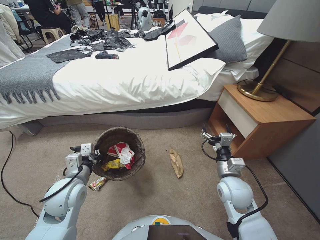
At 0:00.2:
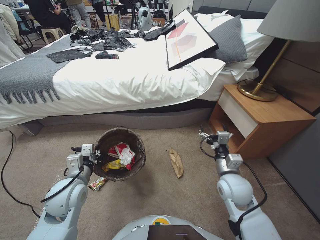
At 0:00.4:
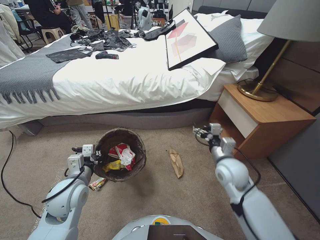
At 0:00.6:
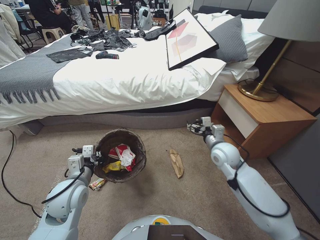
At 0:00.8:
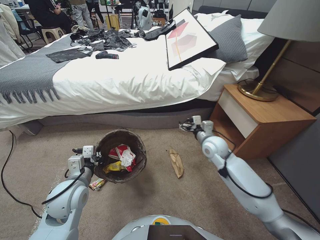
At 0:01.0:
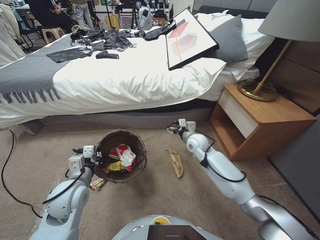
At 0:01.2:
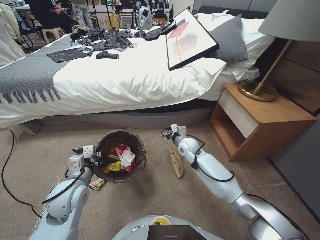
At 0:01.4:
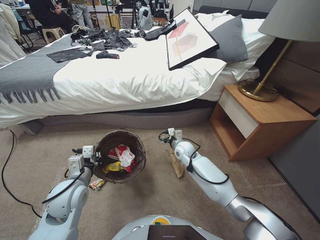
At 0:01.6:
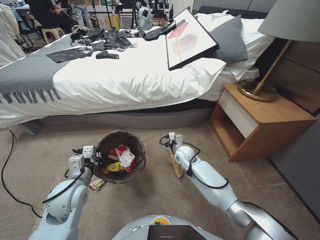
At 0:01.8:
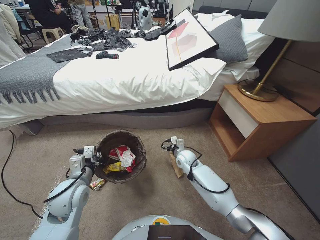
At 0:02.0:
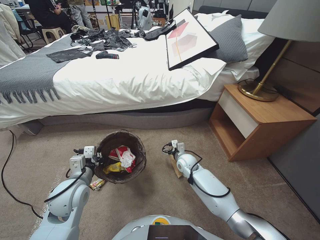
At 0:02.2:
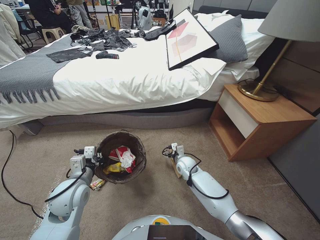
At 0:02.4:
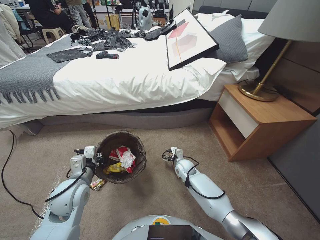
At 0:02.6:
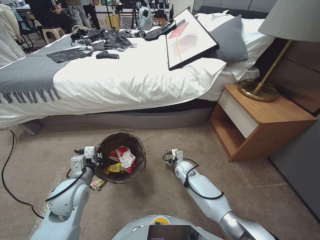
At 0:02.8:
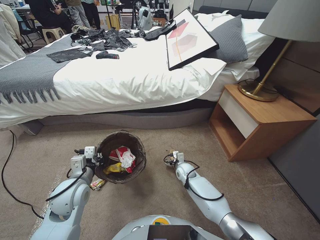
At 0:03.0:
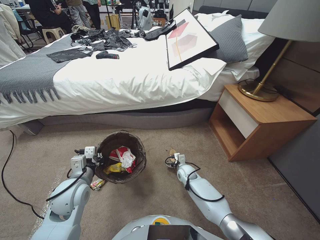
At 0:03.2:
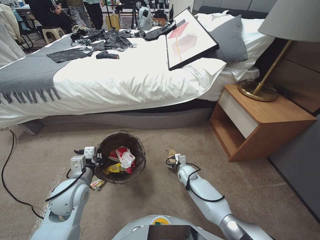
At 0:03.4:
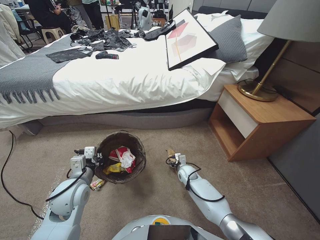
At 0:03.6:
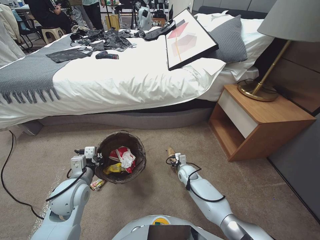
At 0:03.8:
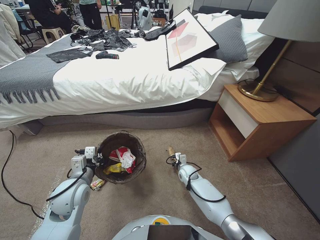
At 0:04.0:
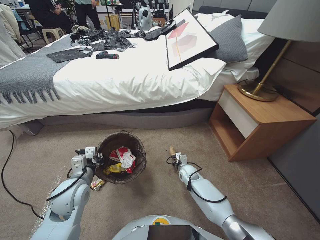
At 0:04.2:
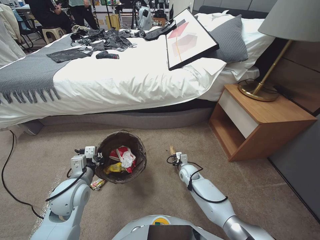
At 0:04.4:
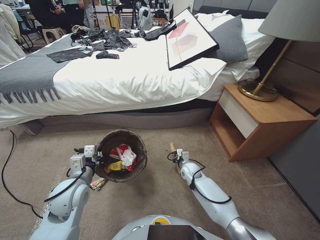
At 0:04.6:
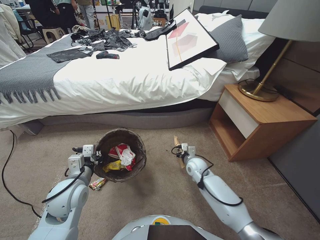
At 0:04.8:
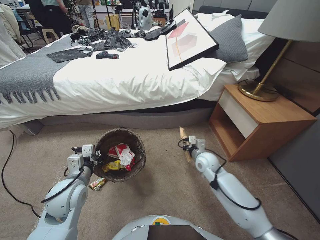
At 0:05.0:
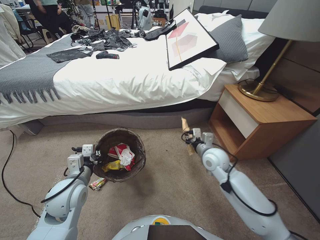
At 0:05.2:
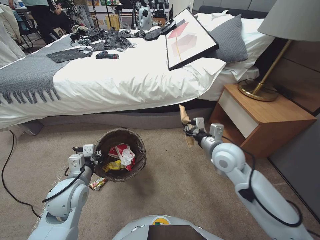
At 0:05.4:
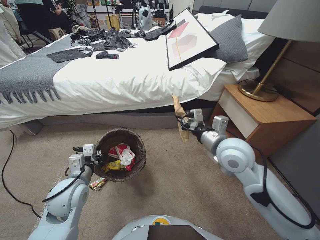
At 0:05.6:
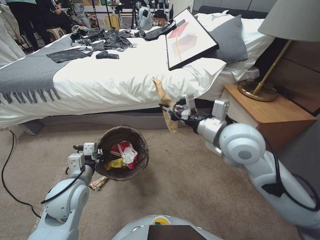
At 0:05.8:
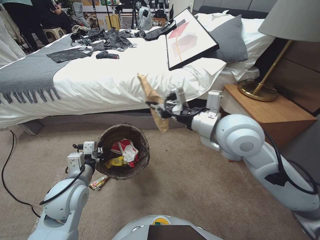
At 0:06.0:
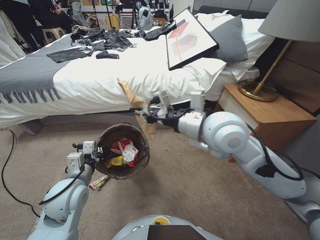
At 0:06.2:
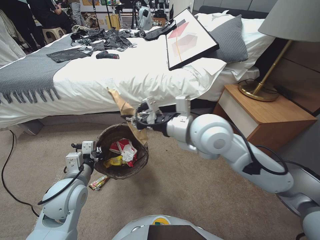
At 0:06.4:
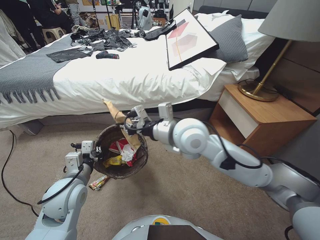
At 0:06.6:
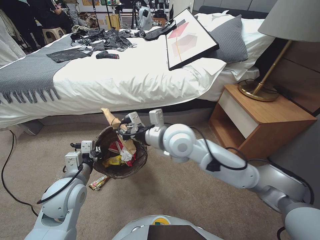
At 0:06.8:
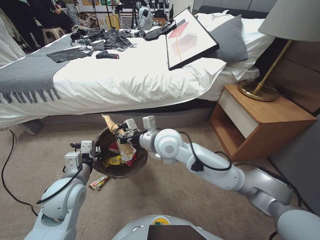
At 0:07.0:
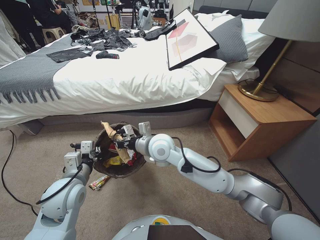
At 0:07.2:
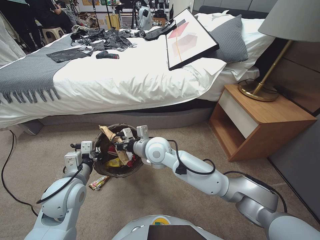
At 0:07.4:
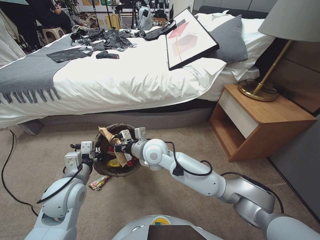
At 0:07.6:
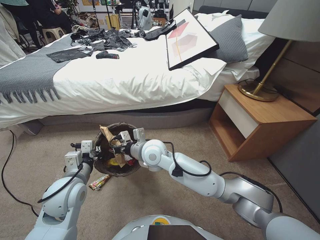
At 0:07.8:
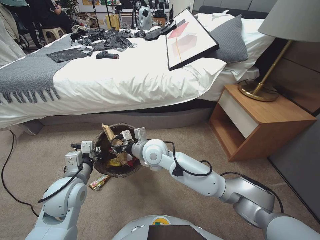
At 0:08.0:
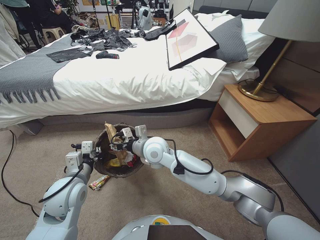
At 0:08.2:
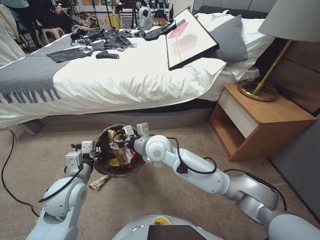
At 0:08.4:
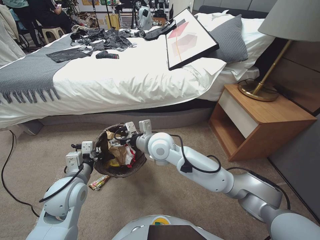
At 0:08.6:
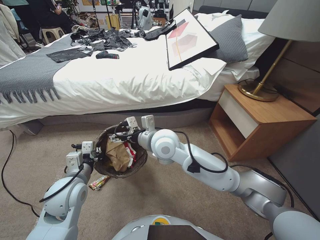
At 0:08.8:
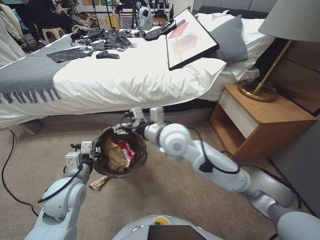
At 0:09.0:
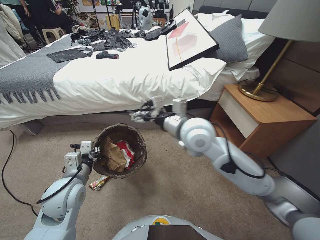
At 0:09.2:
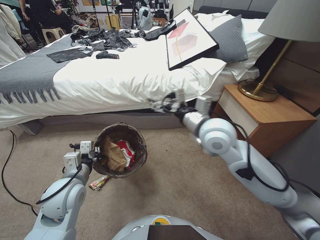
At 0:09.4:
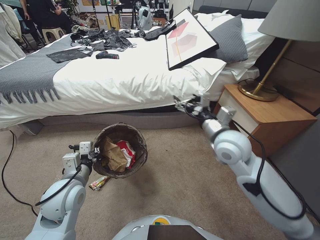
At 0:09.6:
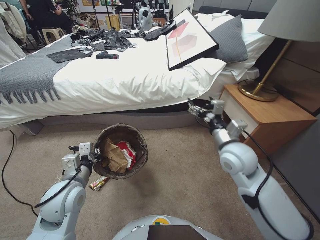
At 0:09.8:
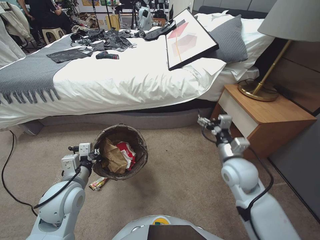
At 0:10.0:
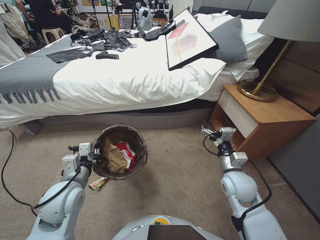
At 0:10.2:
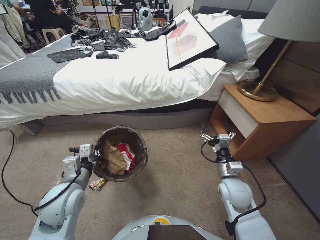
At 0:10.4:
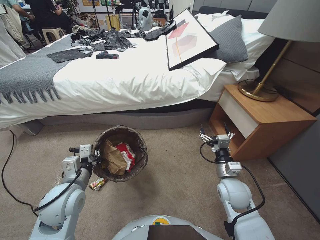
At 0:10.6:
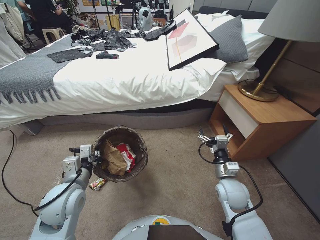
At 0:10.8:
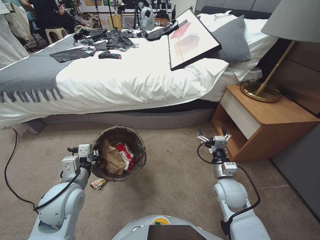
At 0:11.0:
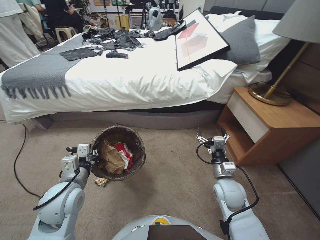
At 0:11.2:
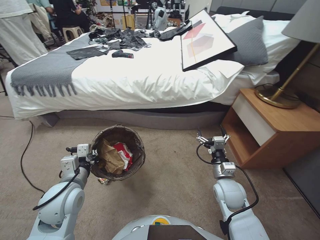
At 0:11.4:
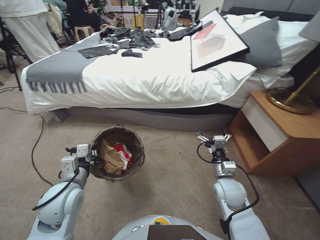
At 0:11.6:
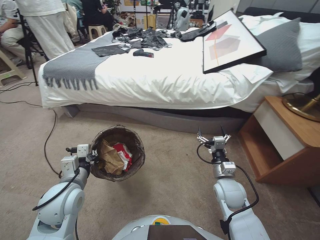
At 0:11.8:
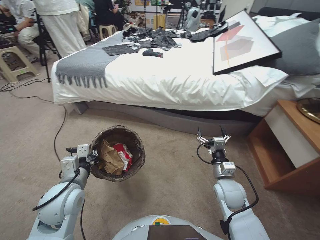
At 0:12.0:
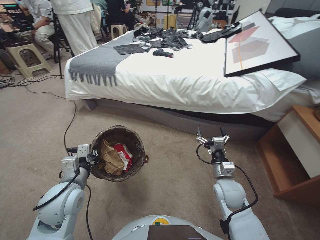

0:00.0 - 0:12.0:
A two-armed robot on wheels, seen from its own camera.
Task of the whole recording: Pick up the trash bin, then pick up the garbage from the floor and place it into the trash bin.
0:00.0 - 0:01.6: The right gripper moves forward, to the left and downward, roughly 25 cm.
0:01.6 - 0:03.0: The right gripper travels downward by about 15 cm.
0:03.0 - 0:04.4: The right gripper closes its fingers.
0:04.4 - 0:06.0: The right gripper travels upward by approximately 50 cm.
0:06.0 - 0:07.6: The right gripper is displaced to the left and downward by some 25 cm.
0:07.6 - 0:09.0: The right gripper opens its fingers.
0:09.0 - 0:10.4: The right gripper goes some 25 cm to the right.
0:10.4 - 0:12.0: The right gripper travels downward by some 20 cm.

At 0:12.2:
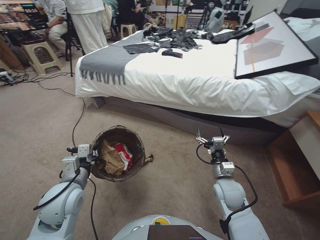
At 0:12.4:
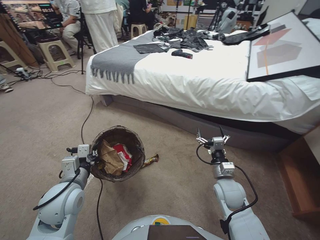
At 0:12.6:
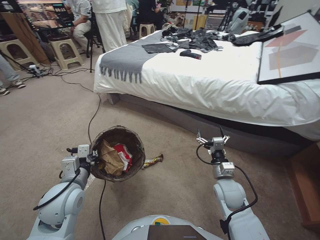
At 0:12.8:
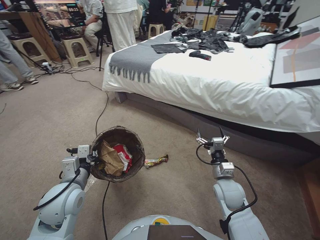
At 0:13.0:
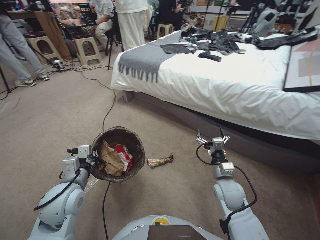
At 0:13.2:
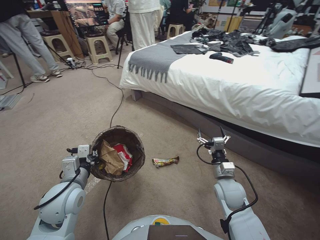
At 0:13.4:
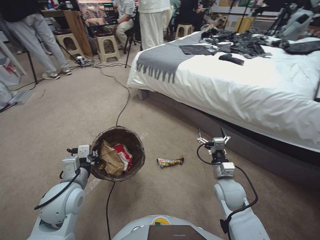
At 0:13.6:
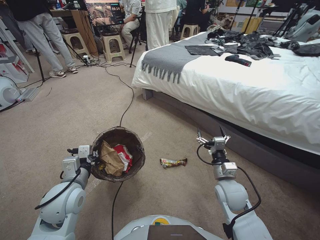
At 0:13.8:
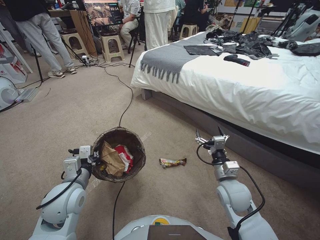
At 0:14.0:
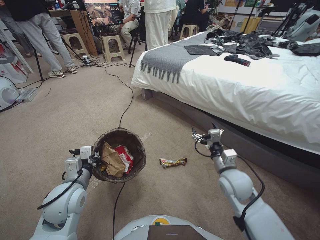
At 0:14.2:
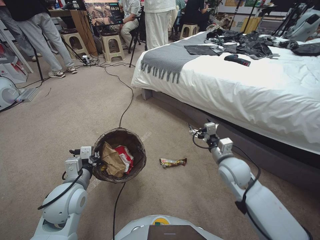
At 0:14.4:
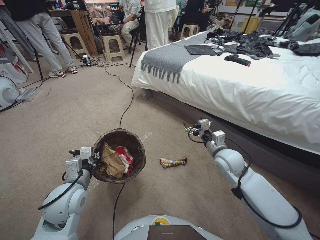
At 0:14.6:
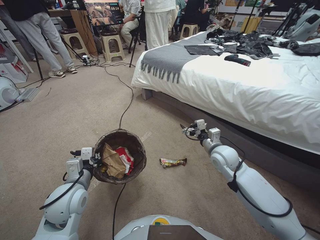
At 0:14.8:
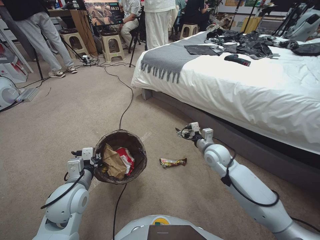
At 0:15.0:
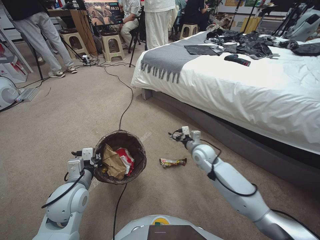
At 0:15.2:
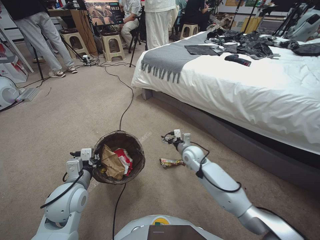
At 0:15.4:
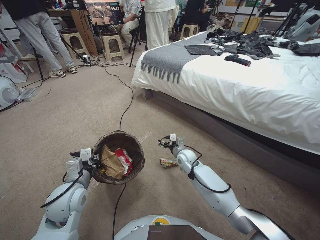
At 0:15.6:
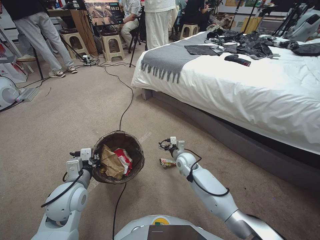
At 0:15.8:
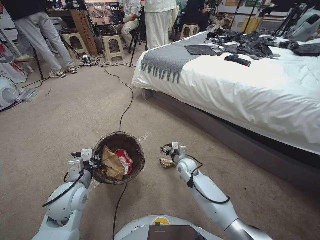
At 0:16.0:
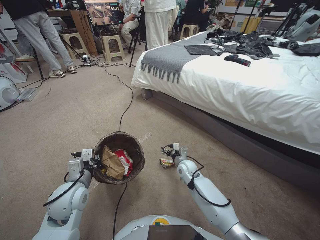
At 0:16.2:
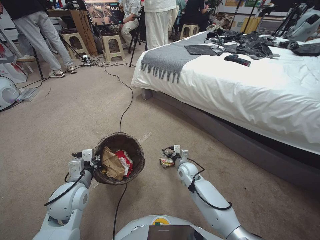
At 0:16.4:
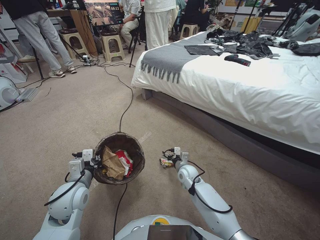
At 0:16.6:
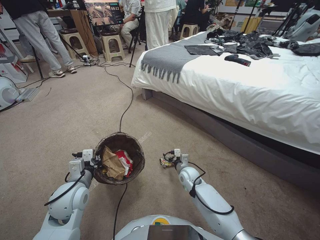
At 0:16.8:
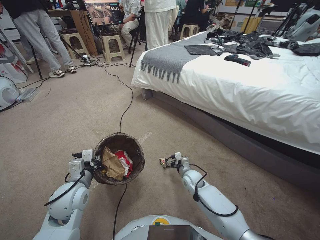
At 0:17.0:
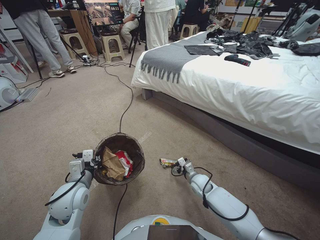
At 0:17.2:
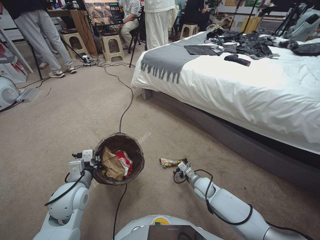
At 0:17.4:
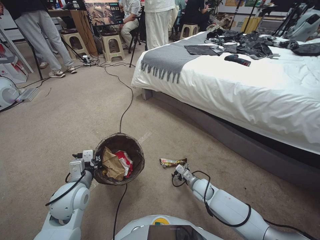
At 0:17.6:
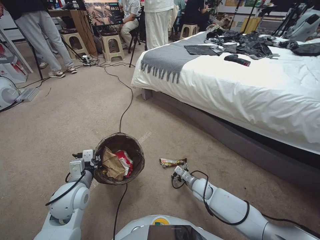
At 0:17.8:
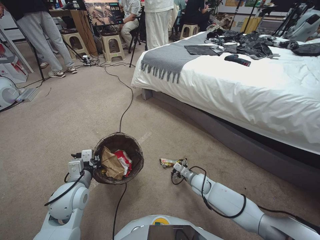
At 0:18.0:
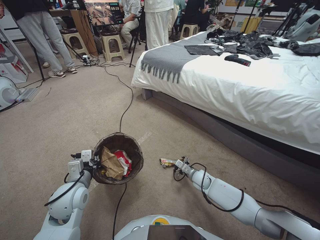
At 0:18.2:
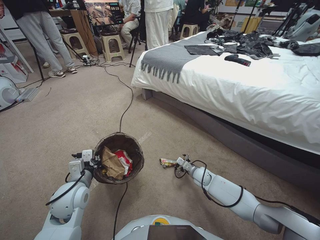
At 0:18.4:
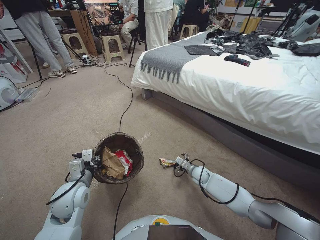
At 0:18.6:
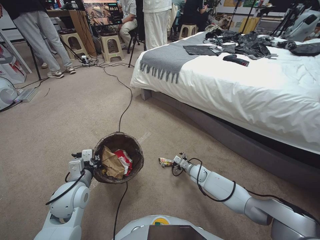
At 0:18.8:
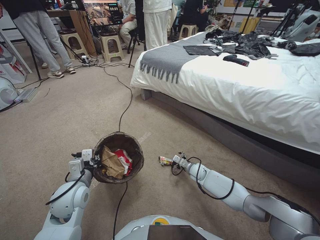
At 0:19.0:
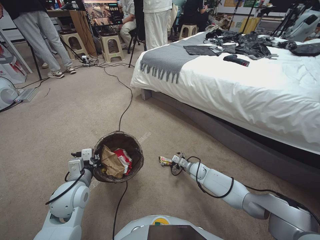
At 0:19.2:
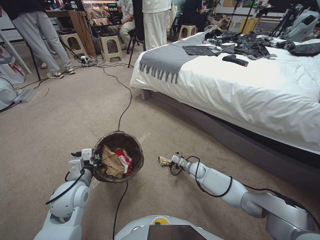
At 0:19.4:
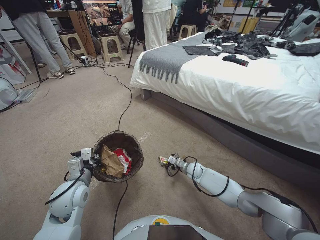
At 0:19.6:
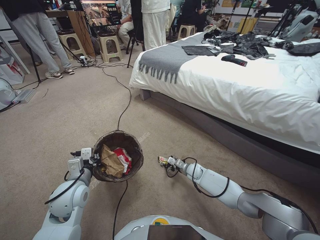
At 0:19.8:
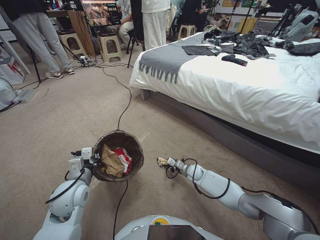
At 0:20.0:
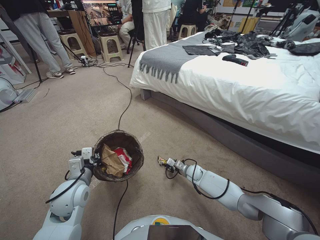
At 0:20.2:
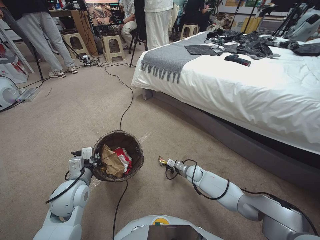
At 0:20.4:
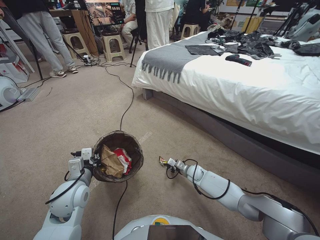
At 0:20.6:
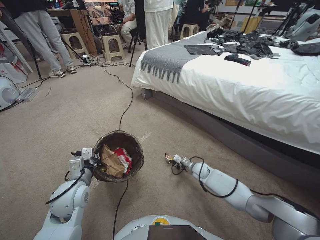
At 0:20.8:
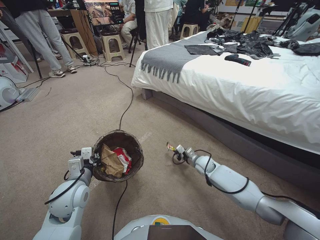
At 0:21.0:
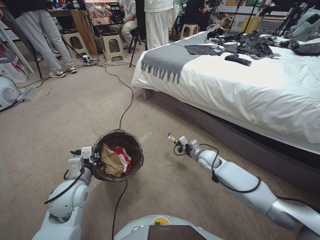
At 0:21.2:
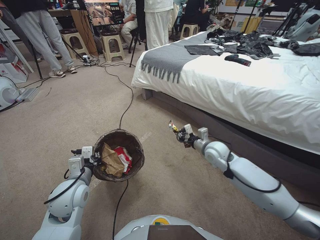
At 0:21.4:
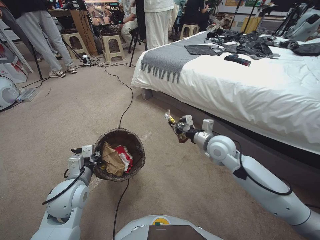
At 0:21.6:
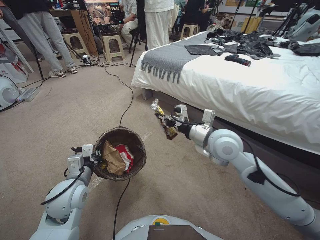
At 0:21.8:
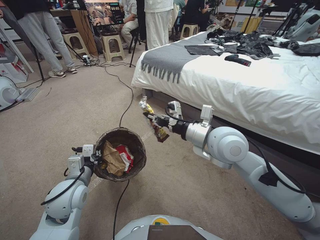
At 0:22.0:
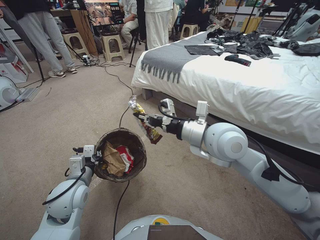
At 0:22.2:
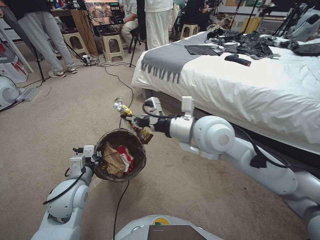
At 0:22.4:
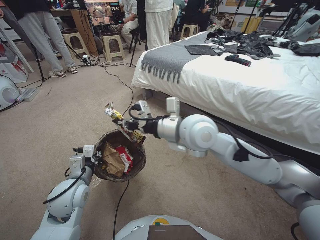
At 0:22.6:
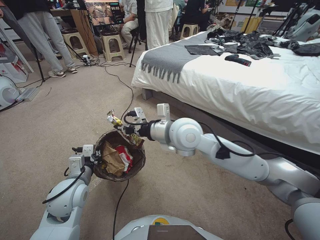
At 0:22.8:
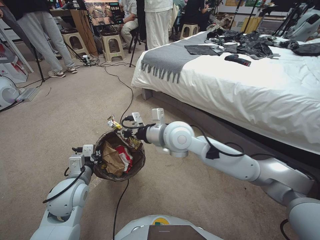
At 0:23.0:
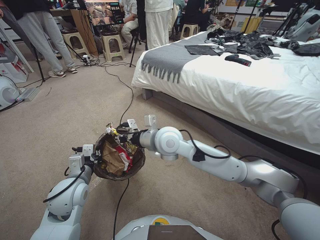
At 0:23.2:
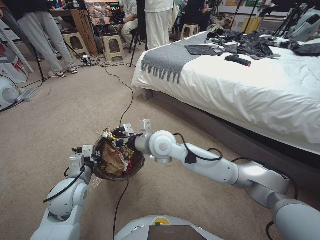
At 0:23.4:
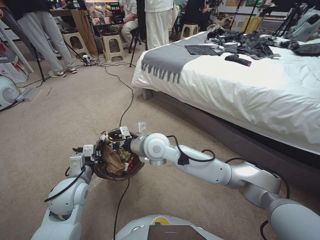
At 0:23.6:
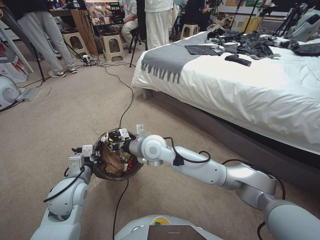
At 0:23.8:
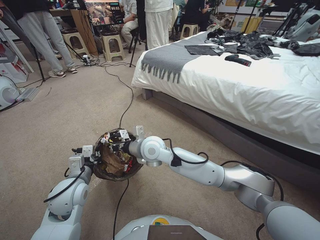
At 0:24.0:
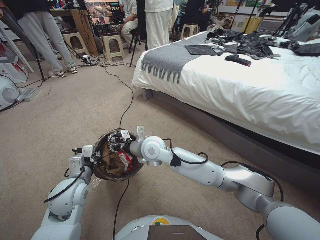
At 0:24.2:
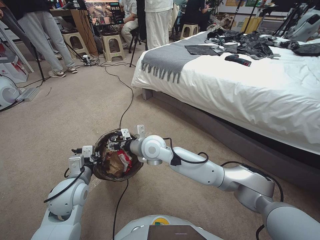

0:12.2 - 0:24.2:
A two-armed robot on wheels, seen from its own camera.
Task of the whole recording: Pick up the trash bin, then pick up the garbage from the floor and place it into the trash bin.
0:13.8 - 0:15.2: The right gripper moves forward, about 15 cm.
0:15.2 - 0:16.6: The right gripper shifts some 20 cm downward and to the left.
0:16.6 - 0:18.2: The right gripper shifts some 10 cm to the right.
0:18.2 - 0:19.8: The right gripper closes.
0:19.8 - 0:21.2: The right gripper goes approximately 20 cm upward, and closes.
0:21.2 - 0:22.6: The right gripper moves upward and to the left, approximately 30 cm.
0:22.6 - 0:24.2: The right gripper goes approximately 15 cm downward and to the left, and opens its fingers.
